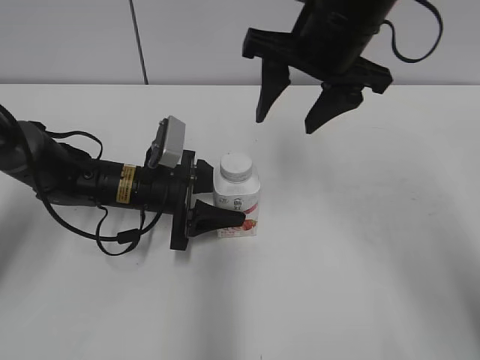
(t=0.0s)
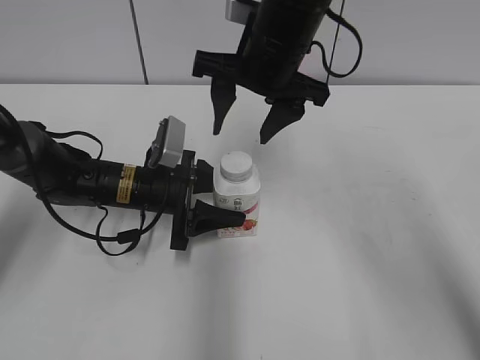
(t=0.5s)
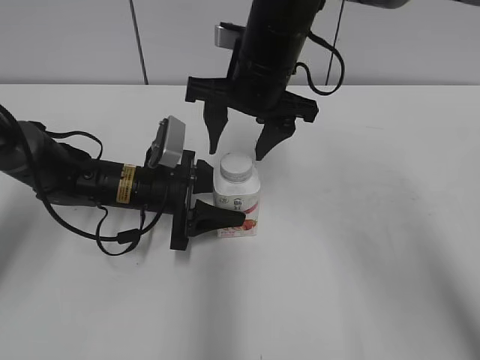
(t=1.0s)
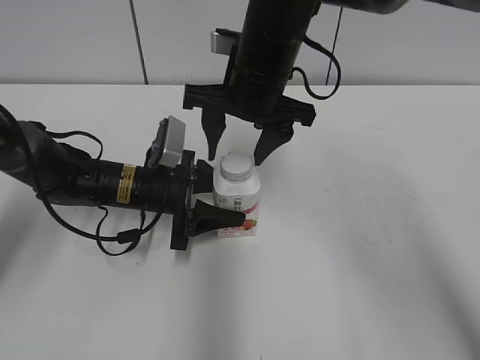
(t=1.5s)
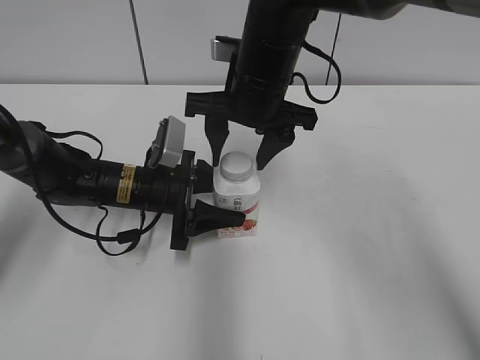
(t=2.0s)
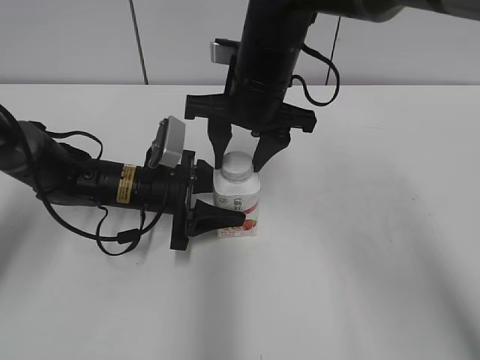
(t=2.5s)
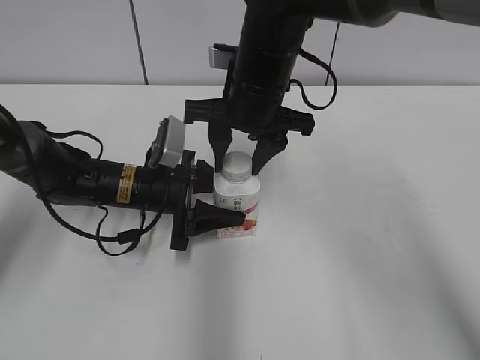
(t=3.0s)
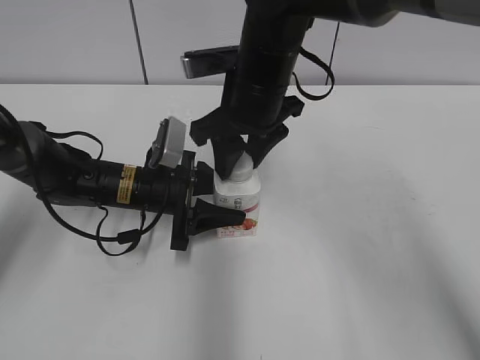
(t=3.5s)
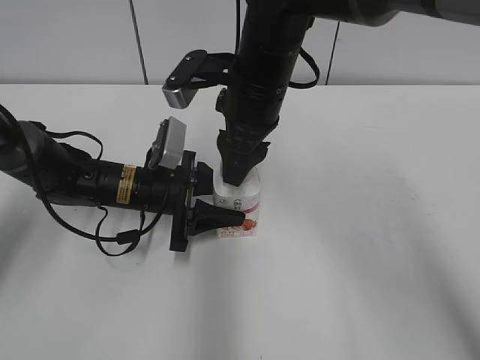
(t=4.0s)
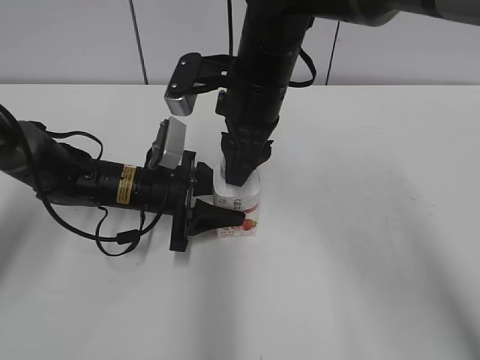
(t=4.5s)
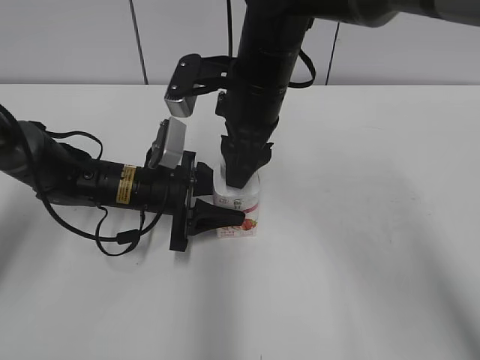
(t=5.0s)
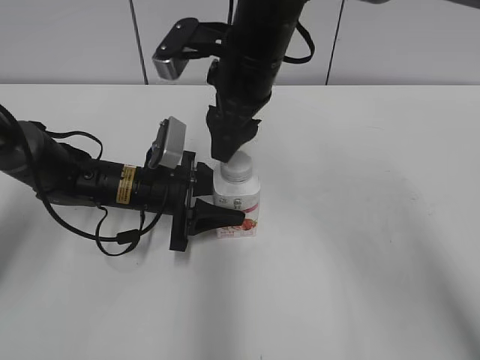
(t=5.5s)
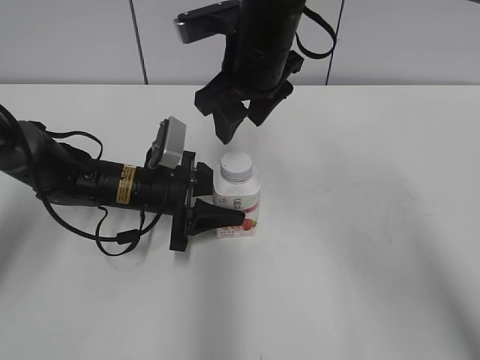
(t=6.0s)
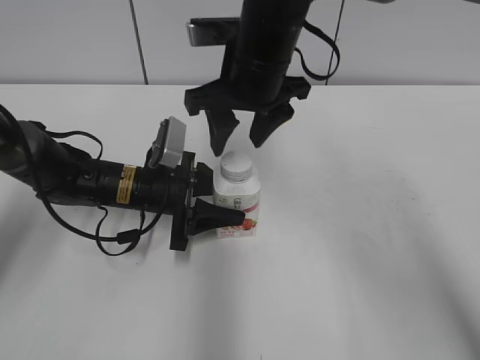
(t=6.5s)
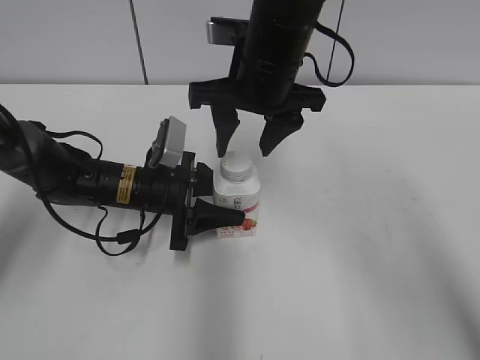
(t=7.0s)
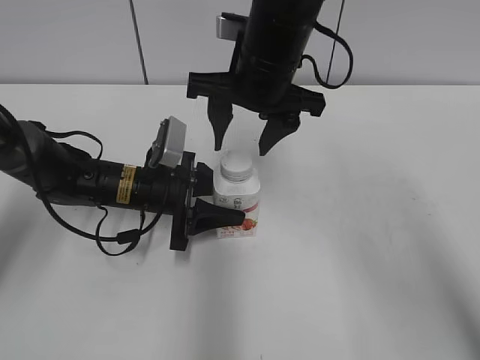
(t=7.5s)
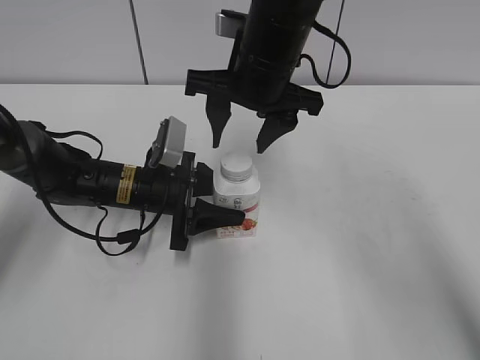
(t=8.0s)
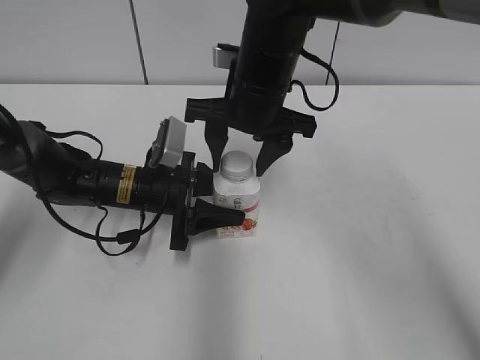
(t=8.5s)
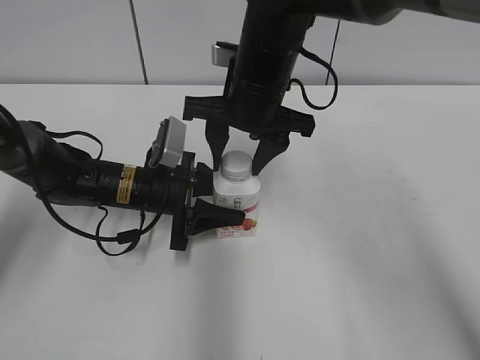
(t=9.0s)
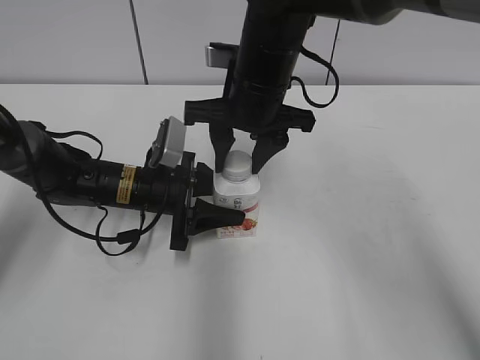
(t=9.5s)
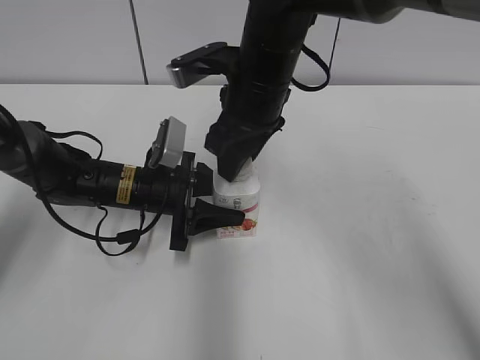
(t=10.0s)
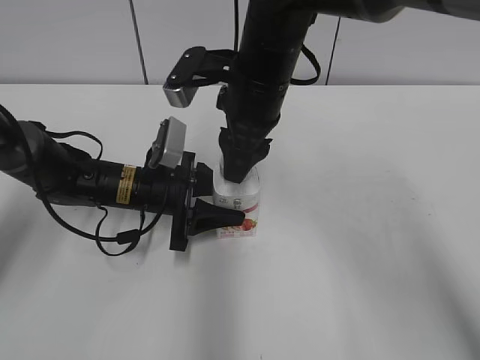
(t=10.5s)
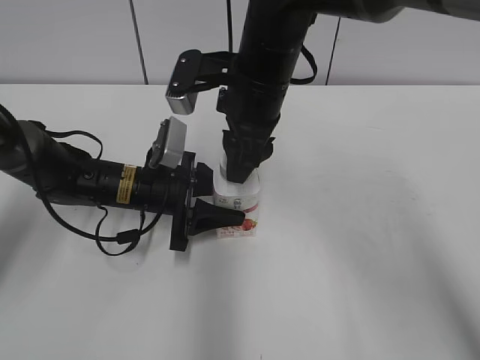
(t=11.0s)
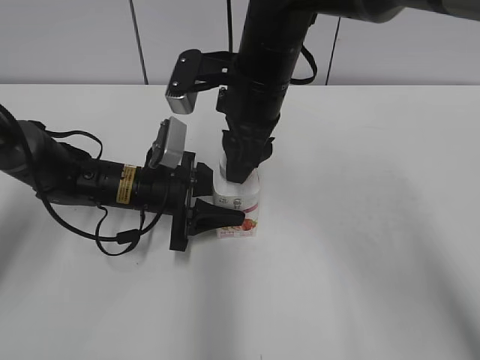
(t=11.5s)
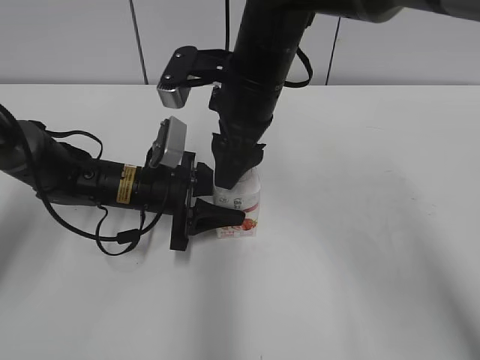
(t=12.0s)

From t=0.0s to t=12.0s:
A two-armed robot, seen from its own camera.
From t=0.0s to t=2.0s: The right gripper moves downward and to the left, approximately 10 cm.
From t=2.0s to t=4.0s: The right gripper closes its fingers.
From t=4.0s to t=6.0s: The right gripper opens its fingers.
From t=8.0s to t=10.0s: The right gripper closes up.
From t=10.0s to t=12.0s: The right gripper opens its fingers.

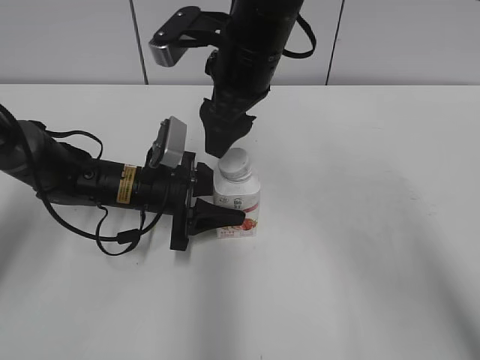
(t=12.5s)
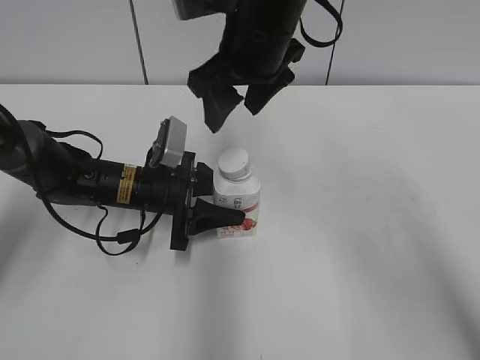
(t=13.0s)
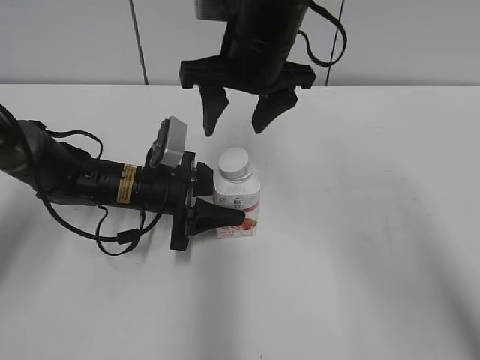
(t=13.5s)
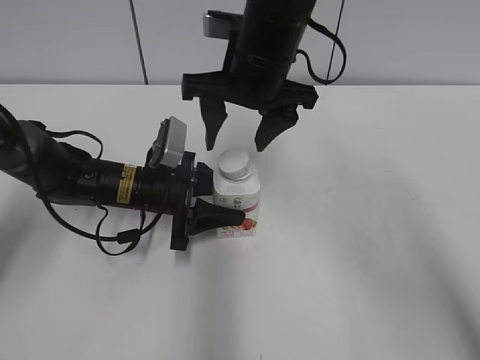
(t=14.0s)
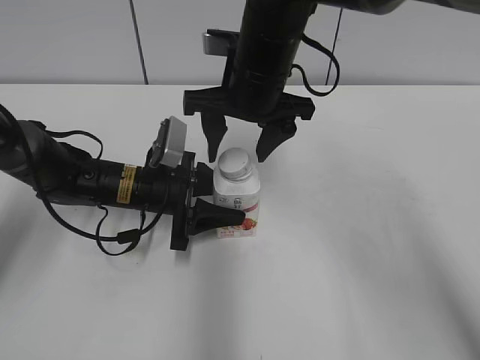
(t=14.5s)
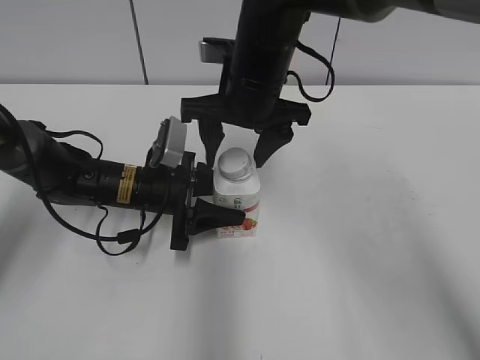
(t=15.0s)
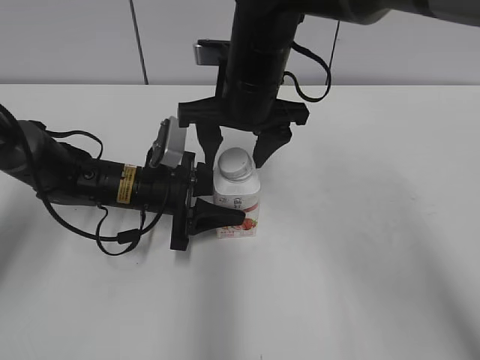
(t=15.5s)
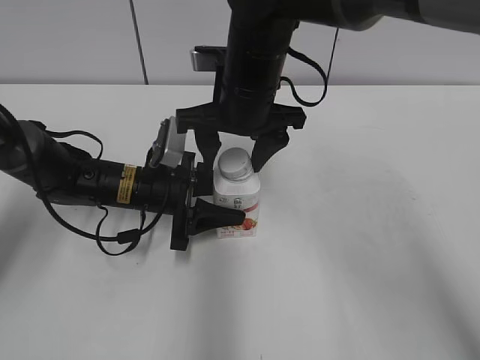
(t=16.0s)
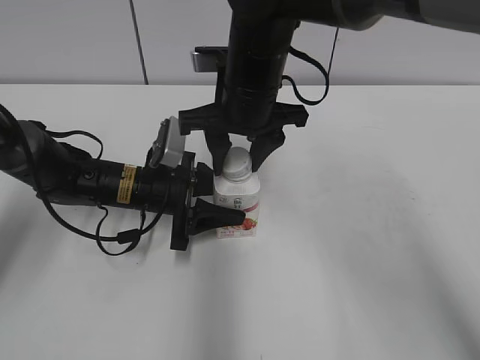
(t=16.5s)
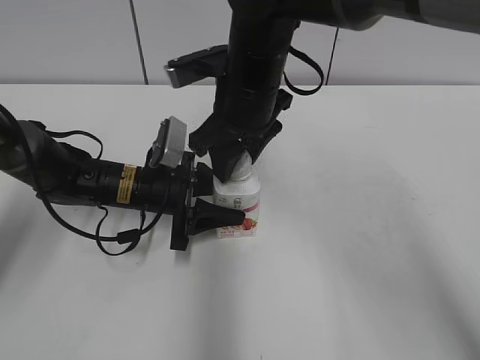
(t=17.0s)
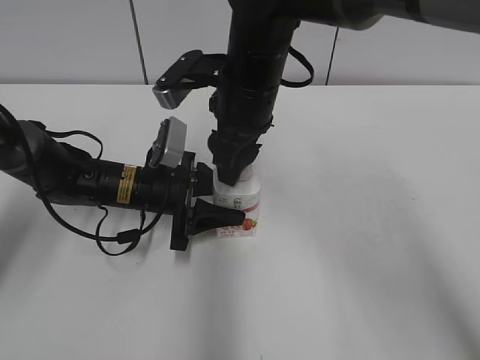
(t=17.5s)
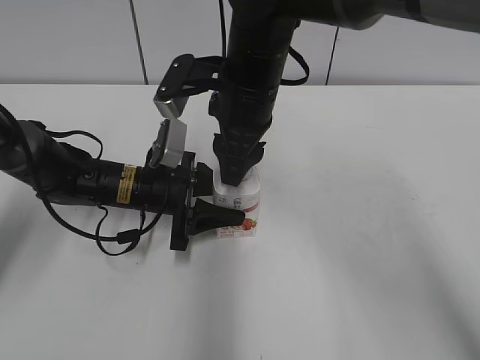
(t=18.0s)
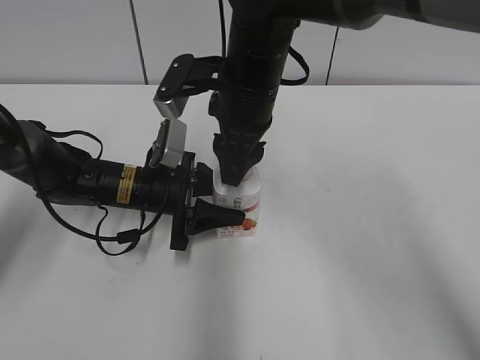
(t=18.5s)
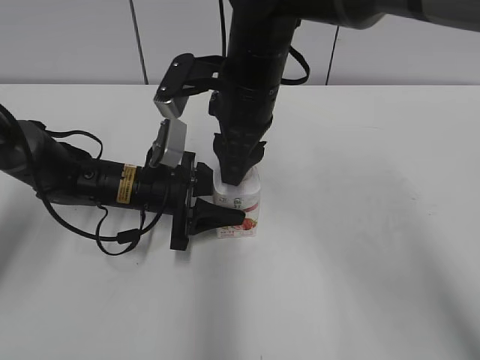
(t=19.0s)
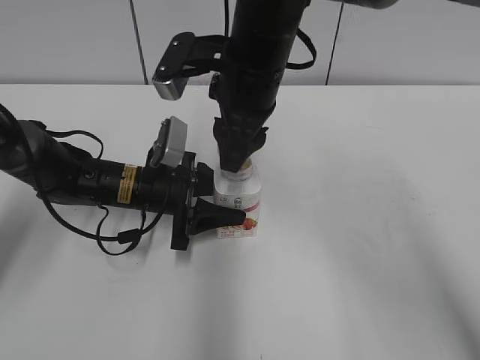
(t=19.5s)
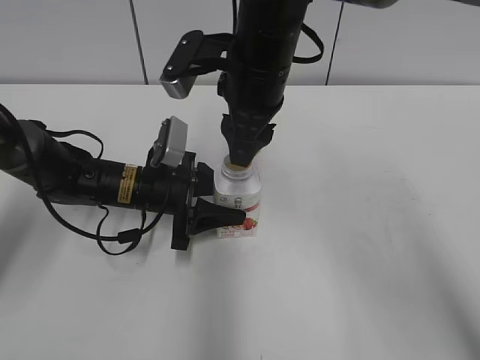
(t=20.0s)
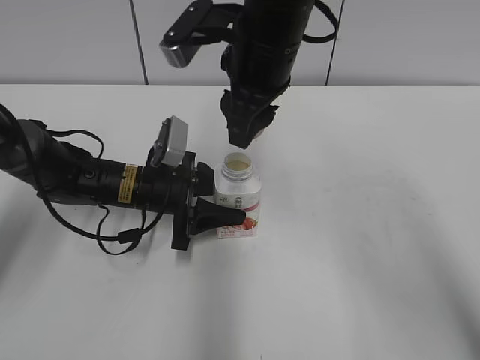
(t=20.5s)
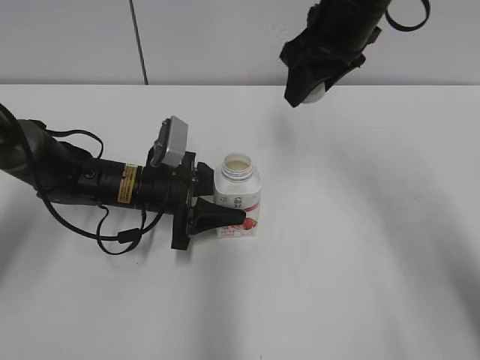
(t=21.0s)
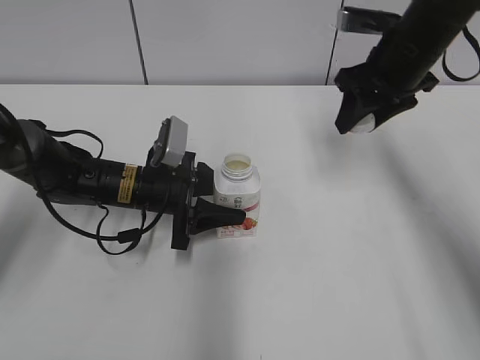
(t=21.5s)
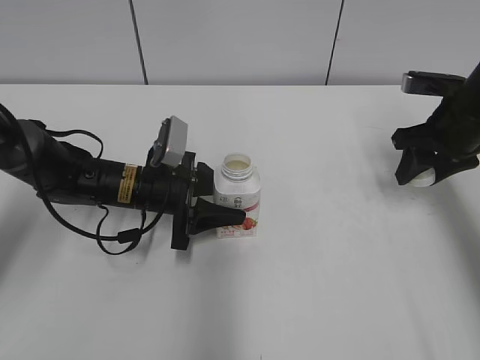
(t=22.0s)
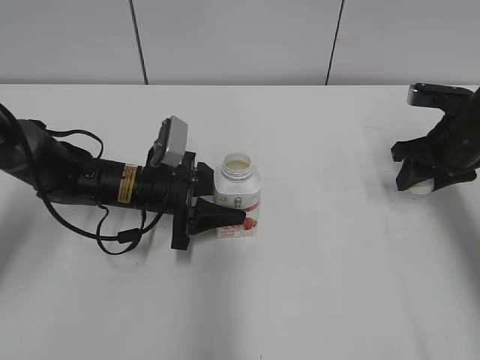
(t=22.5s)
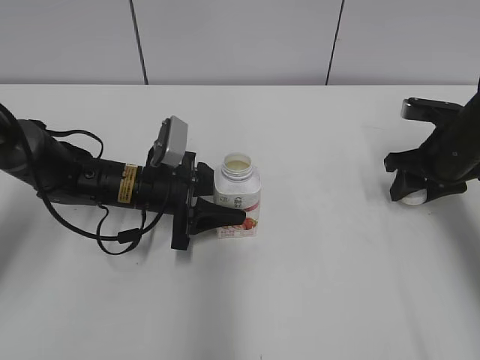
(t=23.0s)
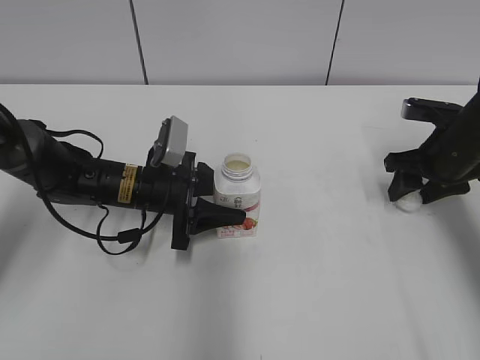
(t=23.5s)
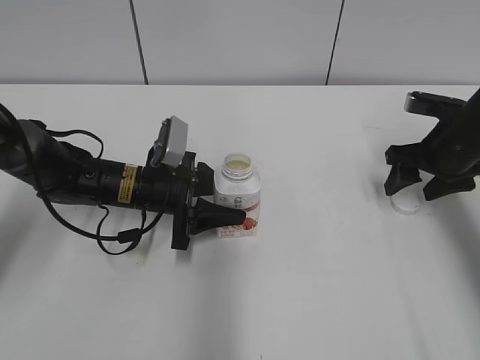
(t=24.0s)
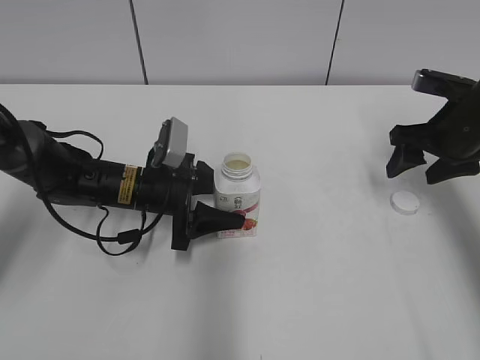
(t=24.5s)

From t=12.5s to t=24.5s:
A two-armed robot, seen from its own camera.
Step, from t=20.0s to t=23.5s: Place the bottle cap on the right.
From t=14.5s to t=16.5s: The right gripper closes its fingers.
From t=18.5s to t=20.5s: The right gripper changes place by about 5 cm.
From t=20.5s to t=22.5s: The right gripper heads to the right and downward, covering roughly 30 cm.
From t=22.5s to t=24.5s: The right gripper opens up.

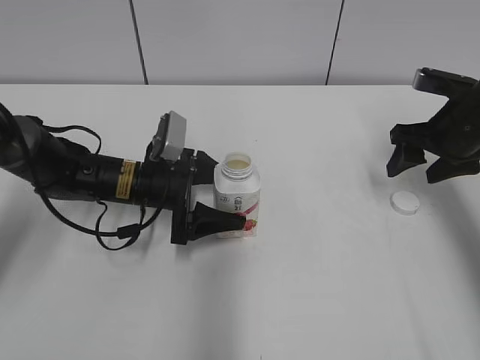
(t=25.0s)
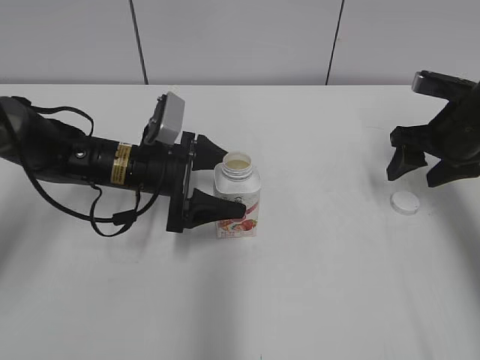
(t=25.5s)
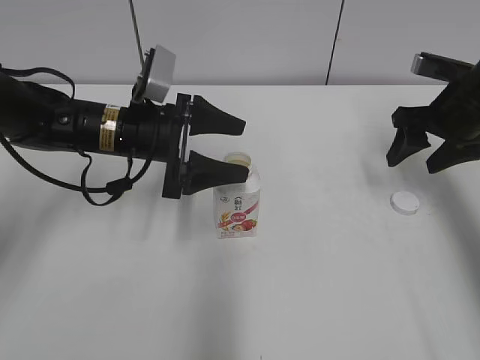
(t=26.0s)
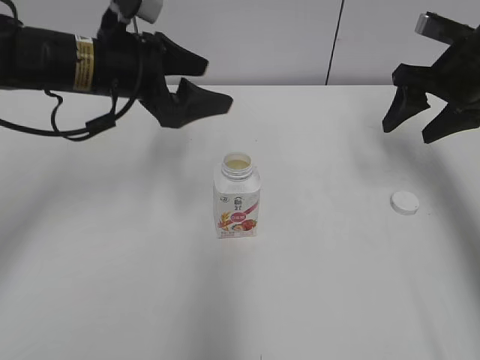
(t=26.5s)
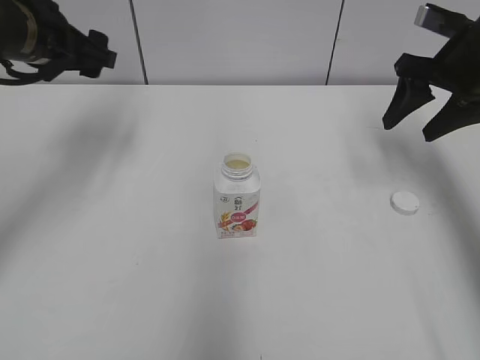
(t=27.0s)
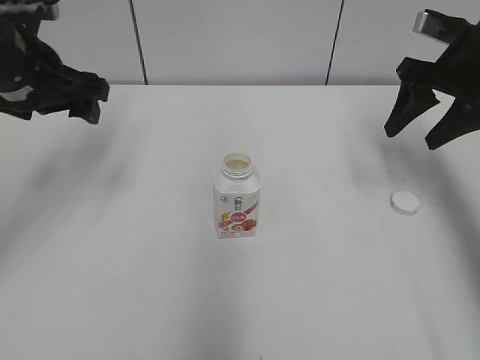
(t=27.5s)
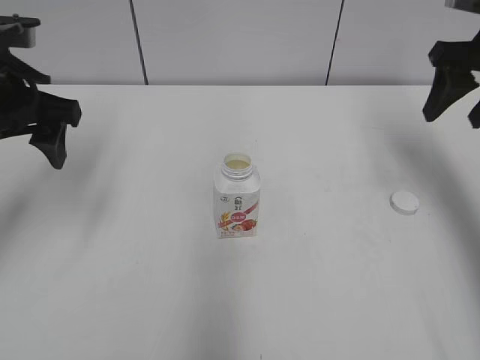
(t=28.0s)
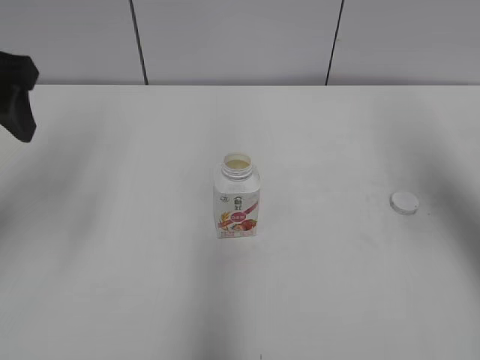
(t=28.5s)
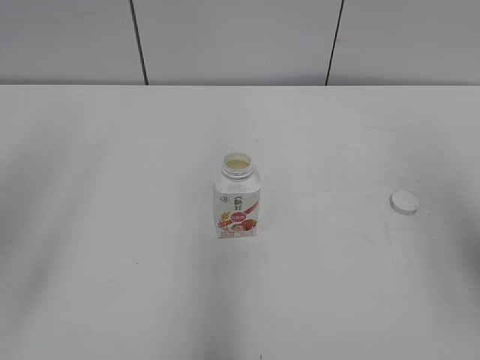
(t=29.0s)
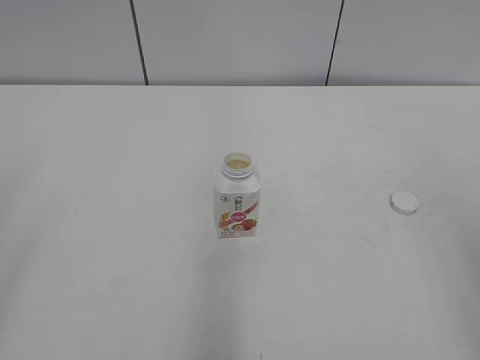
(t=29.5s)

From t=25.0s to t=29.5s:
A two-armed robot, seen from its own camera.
From t=25.0s to t=27.0s: The right gripper heads upward, covering about 10 cm; the left gripper heads upward and to the left, covering about 20 cm.
From t=27.0s to t=29.5s: The grippers both shift backward by some 35 cm.
